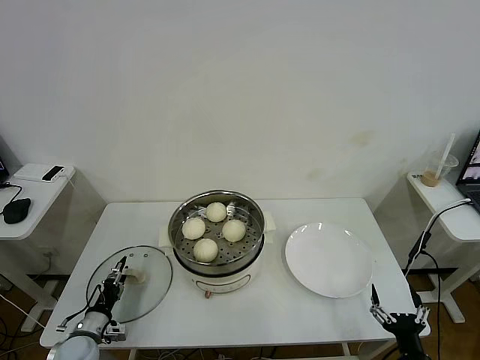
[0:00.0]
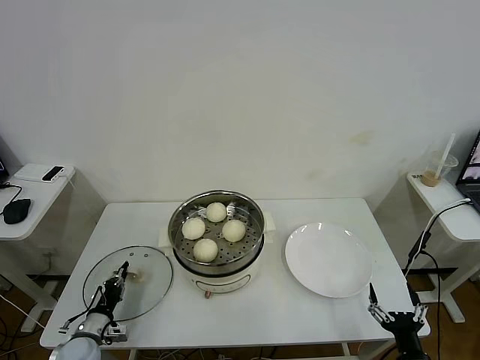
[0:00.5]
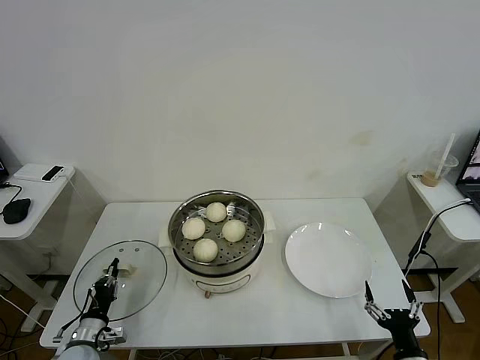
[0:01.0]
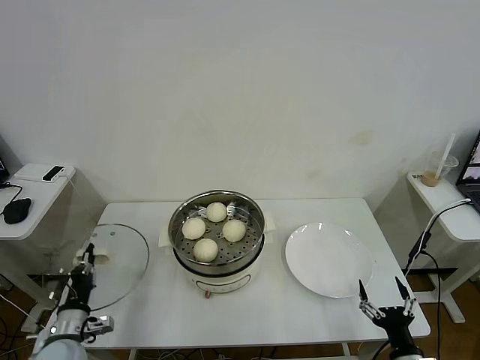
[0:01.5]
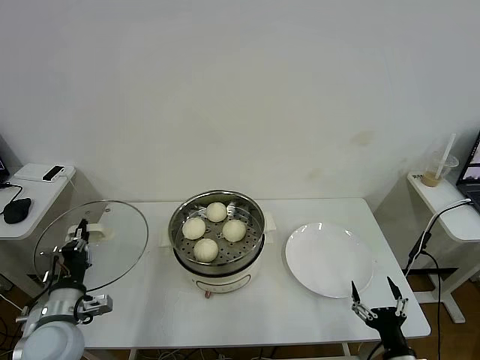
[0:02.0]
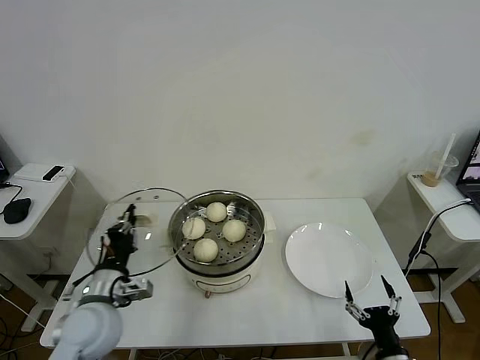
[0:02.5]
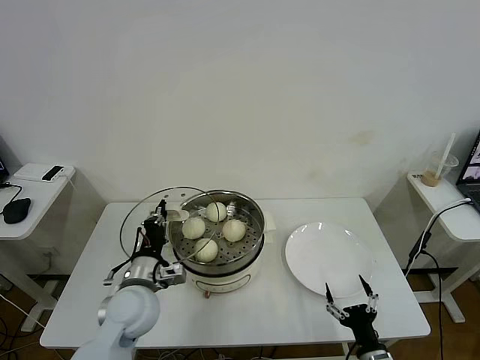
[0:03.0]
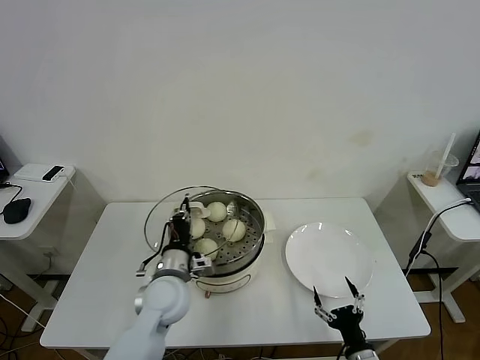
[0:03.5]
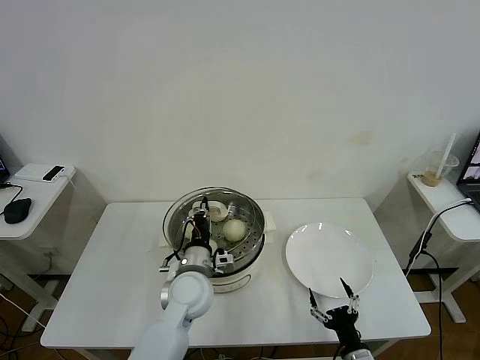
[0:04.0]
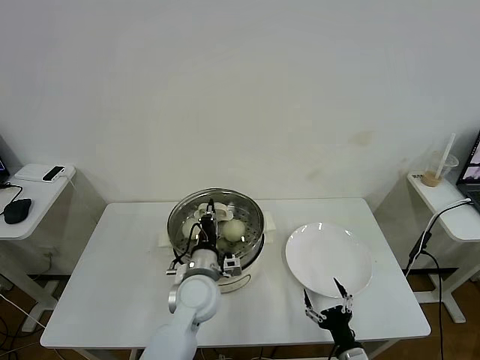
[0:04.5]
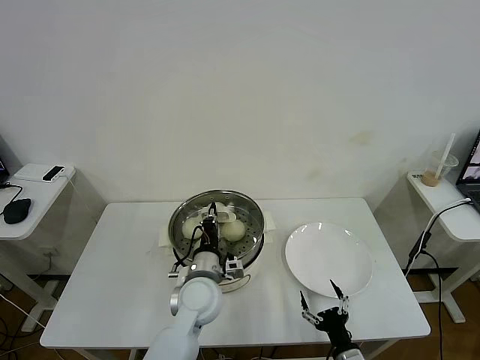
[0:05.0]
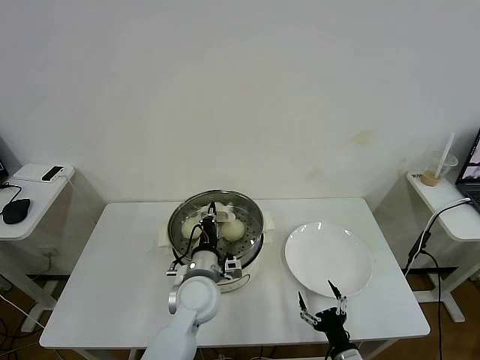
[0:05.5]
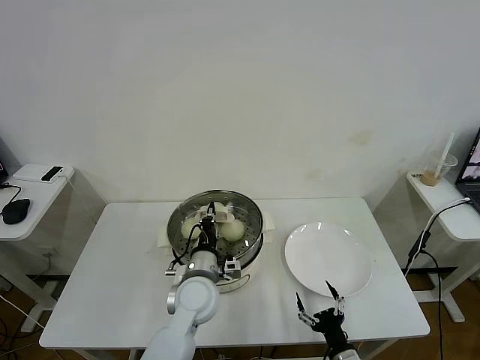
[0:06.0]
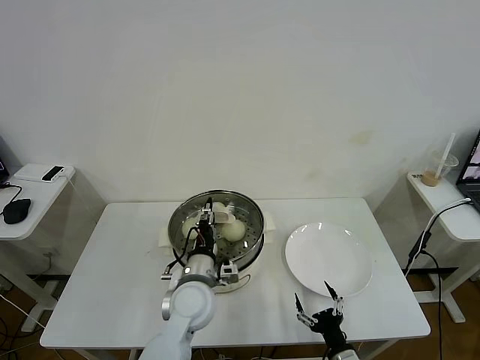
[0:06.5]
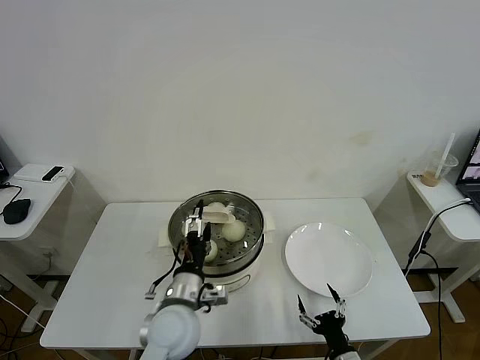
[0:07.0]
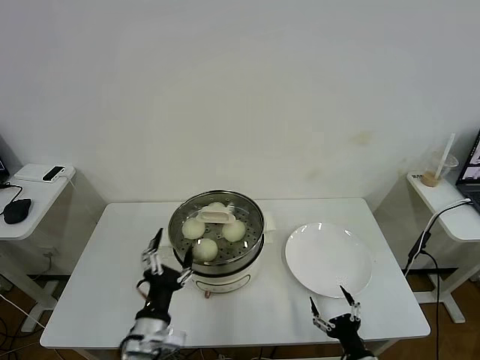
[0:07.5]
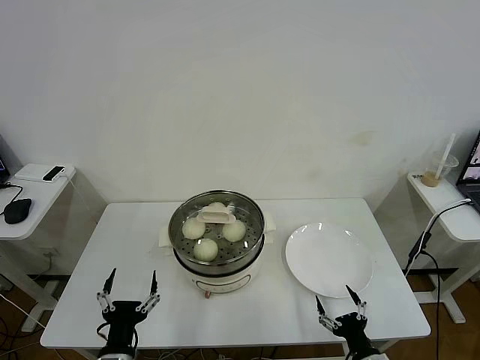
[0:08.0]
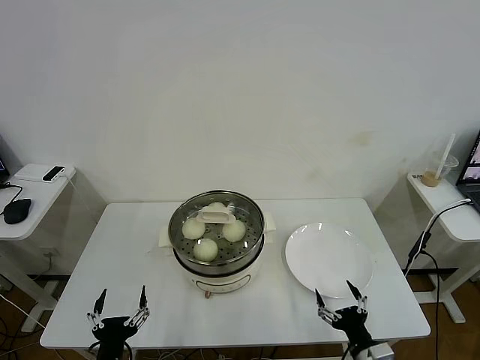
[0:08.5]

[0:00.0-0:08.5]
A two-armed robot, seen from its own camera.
Task of the whole recording: take steamed baozi put them in steamer then cover it.
Step, 0:01.0 to 0:06.5: Place the pot lid on the steamer with left gripper.
0:00.0 to 0:02.0: The left gripper is displaced upward by approximately 15 cm, and closes up.
0:02.0 to 0:04.0: The left gripper travels to the right and forward by some 25 cm. Meanwhile the right gripper is displaced to the left by about 5 cm.
0:04.0 to 0:06.5: The left gripper opens its fingers.
0:06.5 to 0:08.5: The right gripper shifts by some 5 cm. The left gripper is displaced backward and to the left by approximately 25 cm, and opens its fingers.
